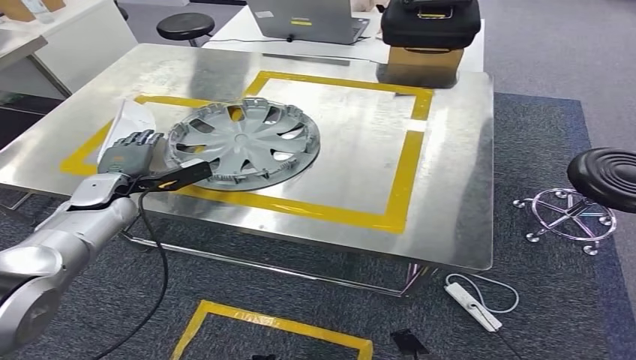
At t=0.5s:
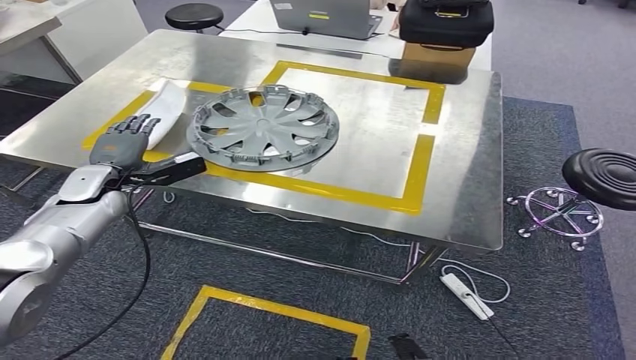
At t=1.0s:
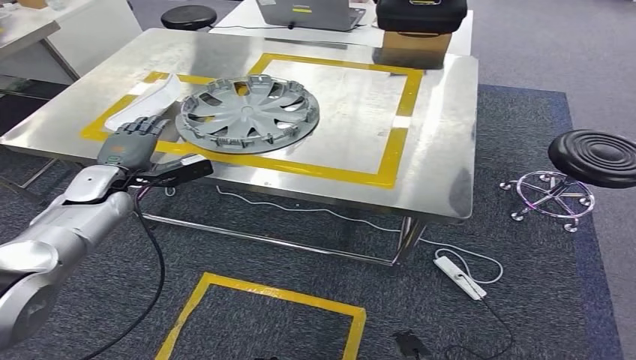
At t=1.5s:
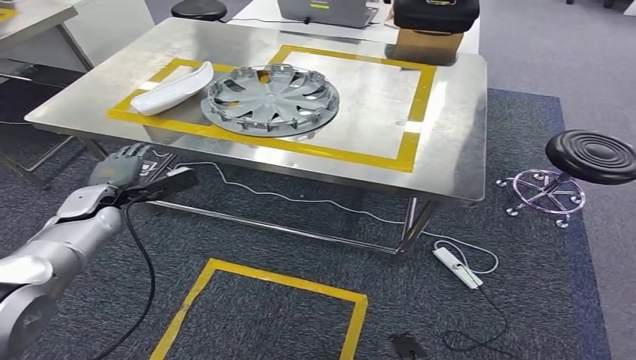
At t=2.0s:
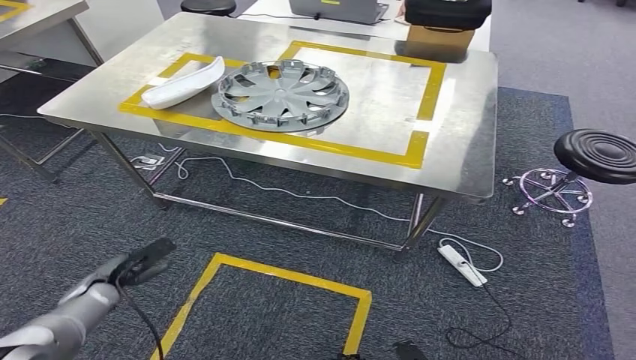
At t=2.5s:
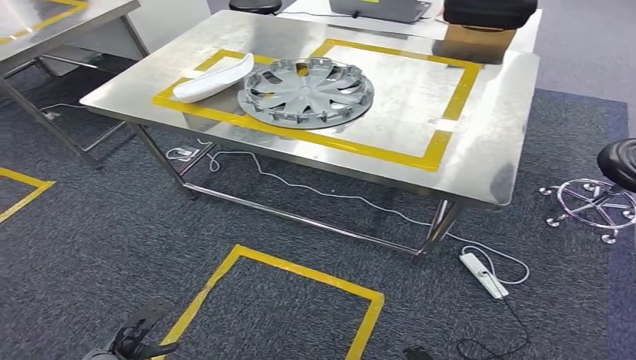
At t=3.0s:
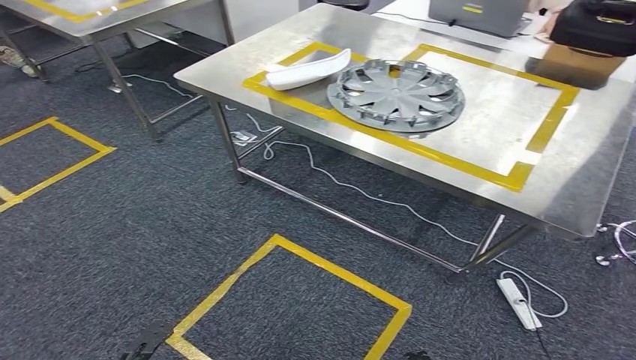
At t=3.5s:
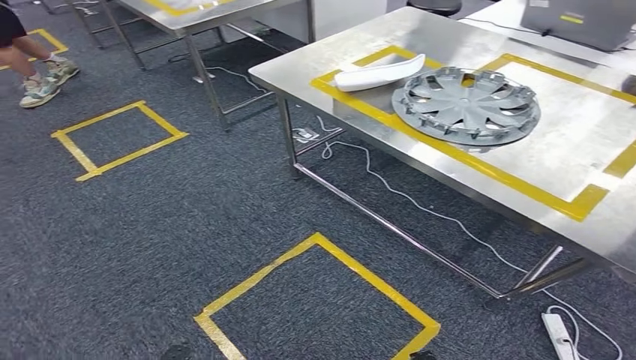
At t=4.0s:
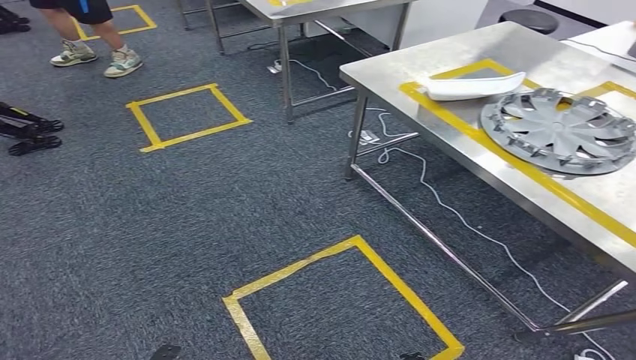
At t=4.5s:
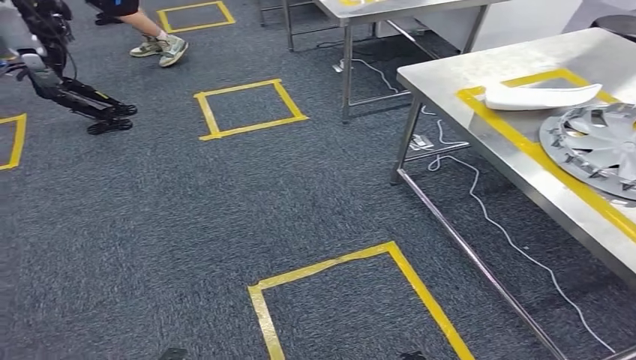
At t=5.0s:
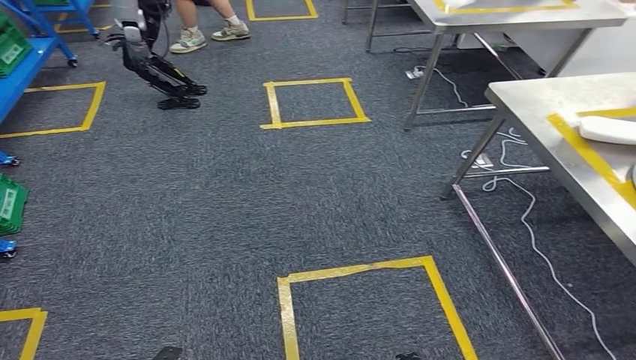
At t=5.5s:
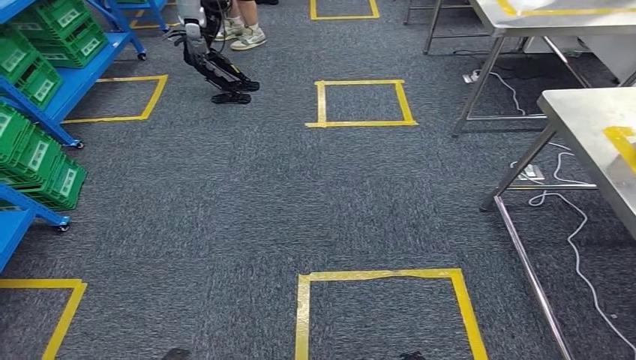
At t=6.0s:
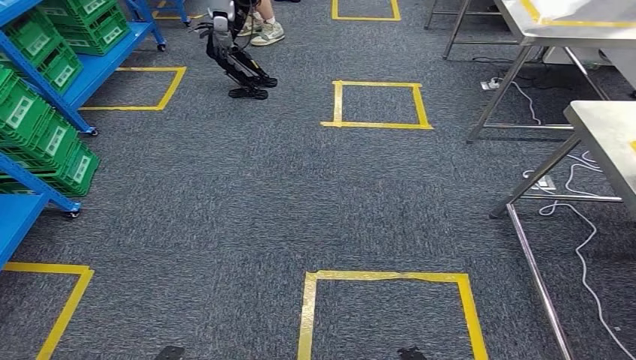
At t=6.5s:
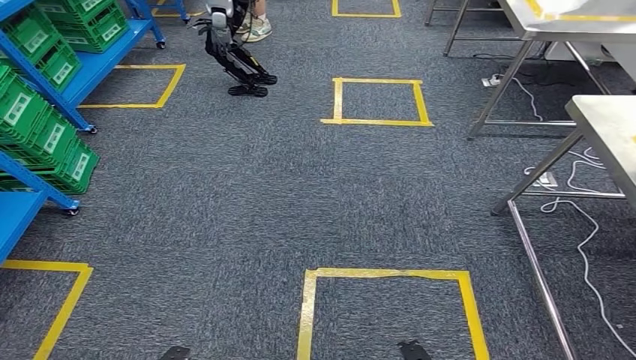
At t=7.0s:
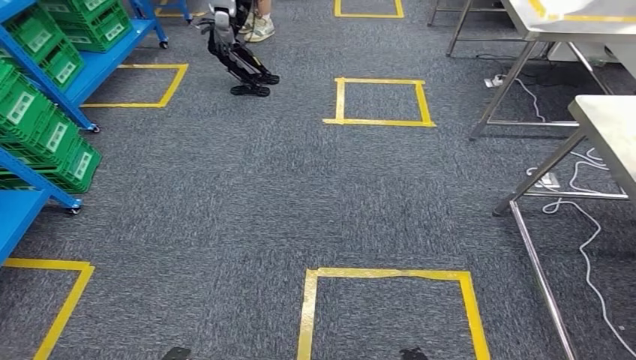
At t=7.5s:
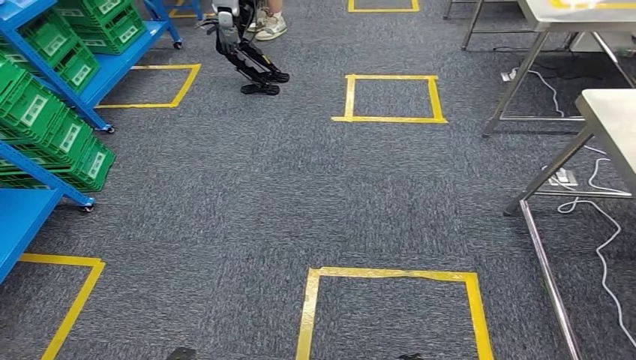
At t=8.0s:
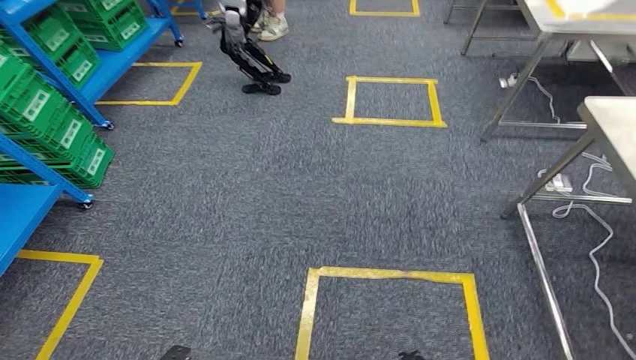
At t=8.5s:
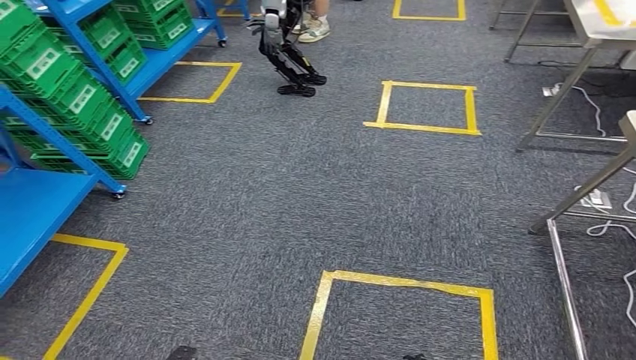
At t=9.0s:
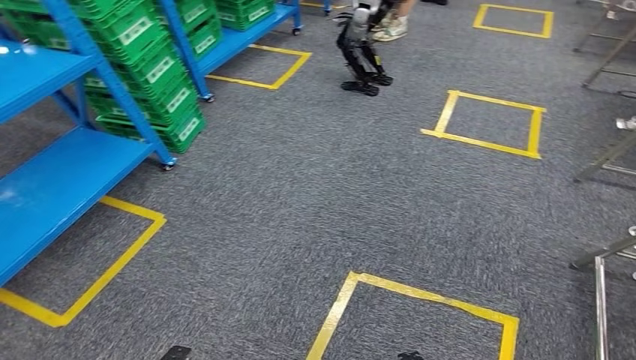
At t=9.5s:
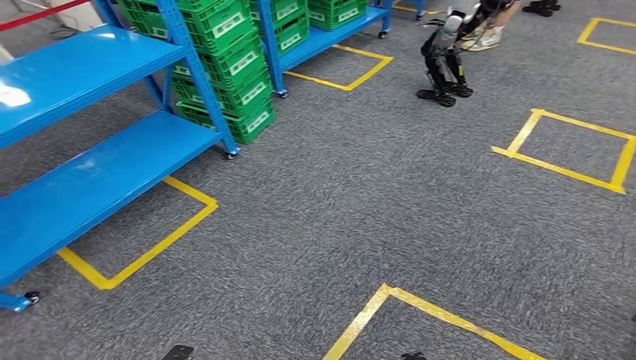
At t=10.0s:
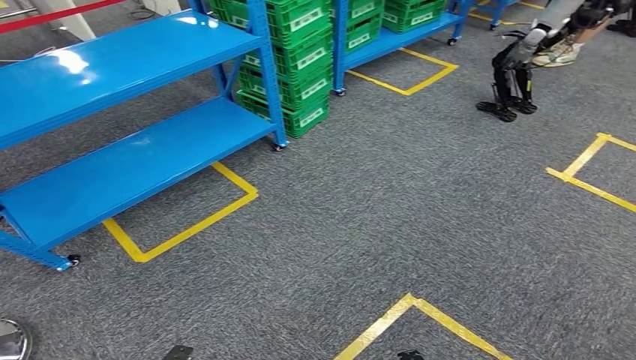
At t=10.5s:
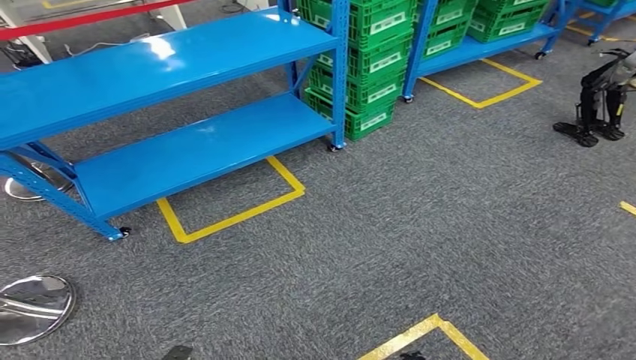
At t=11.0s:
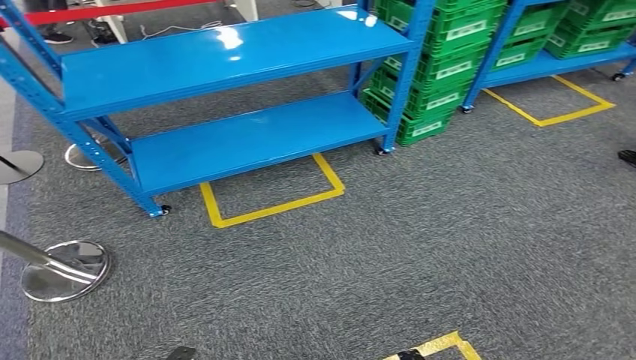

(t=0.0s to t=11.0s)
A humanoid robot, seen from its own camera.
Step, t=0.0s - t=2.5s: Insert the small parts into the corresponding holes on the workbench.
Step, t=3.0s - t=11.0s: Move to the initial position of the workbench.

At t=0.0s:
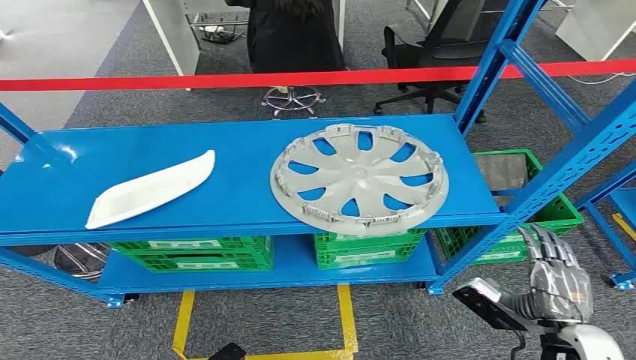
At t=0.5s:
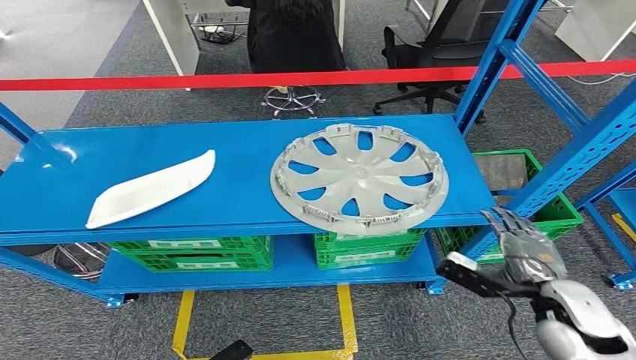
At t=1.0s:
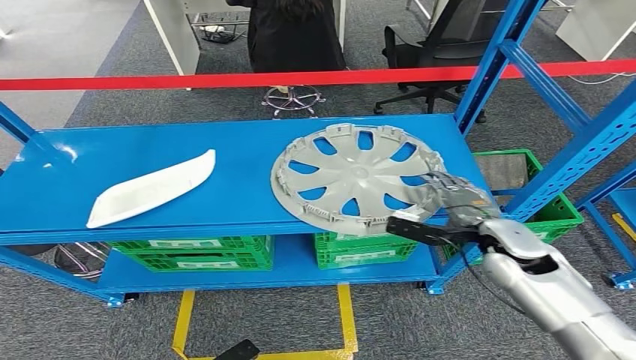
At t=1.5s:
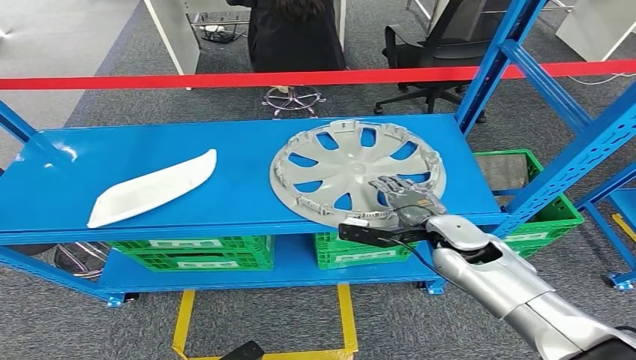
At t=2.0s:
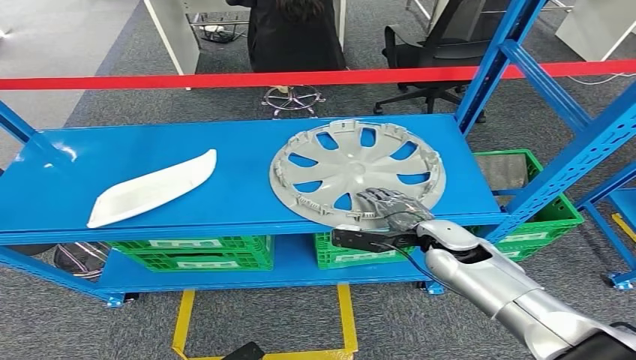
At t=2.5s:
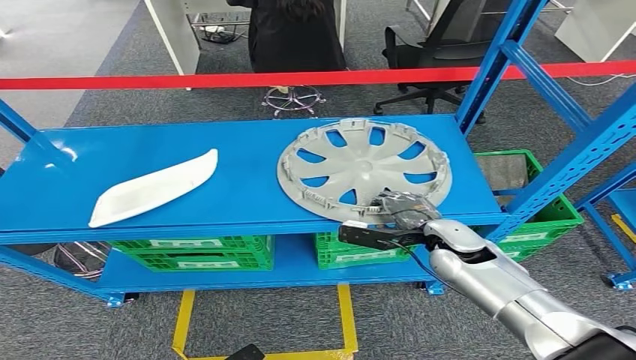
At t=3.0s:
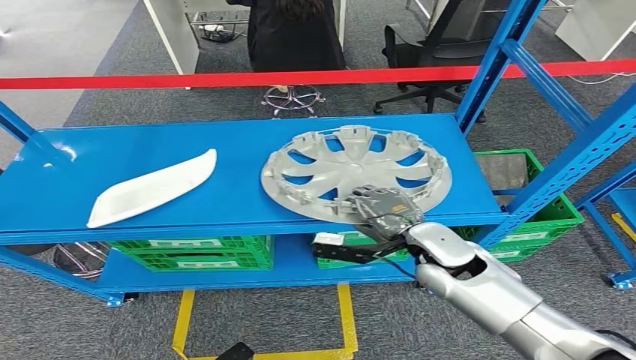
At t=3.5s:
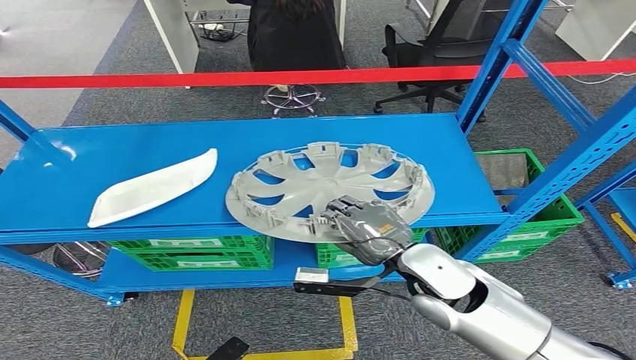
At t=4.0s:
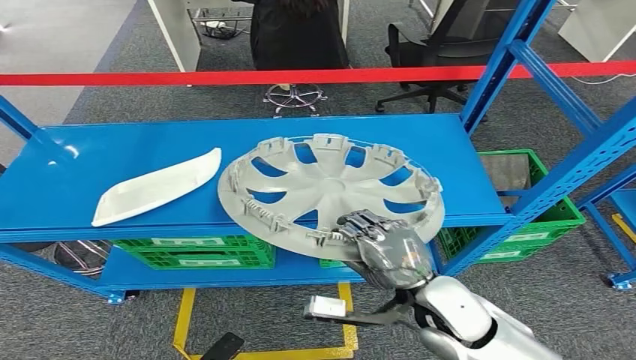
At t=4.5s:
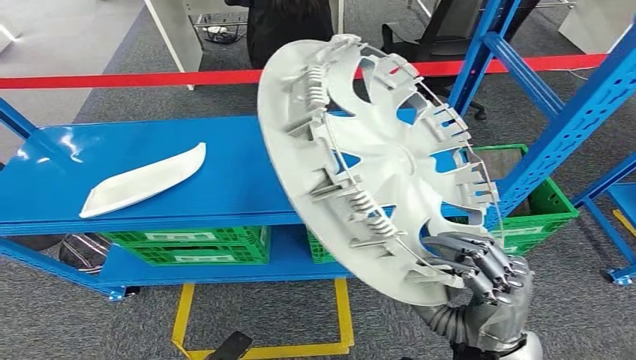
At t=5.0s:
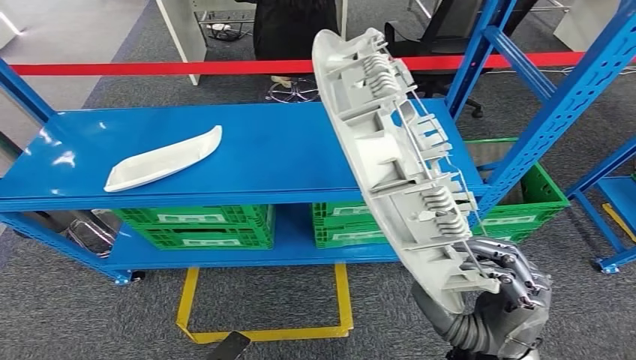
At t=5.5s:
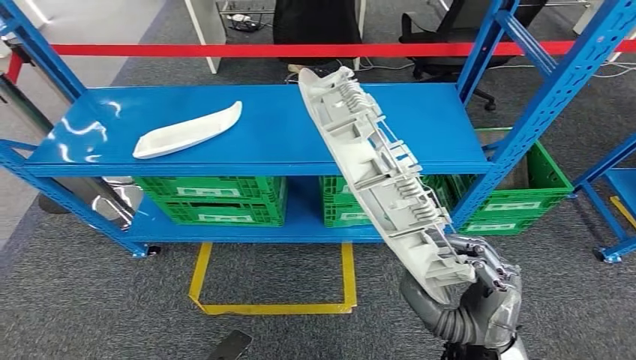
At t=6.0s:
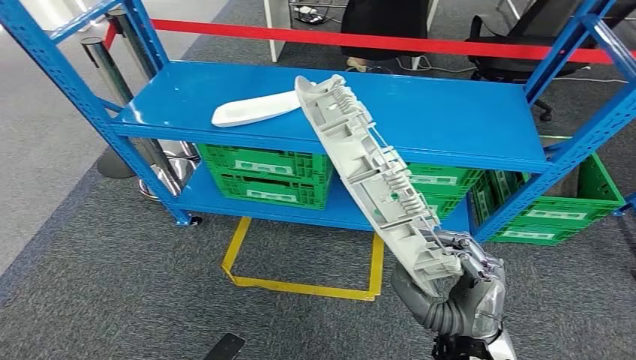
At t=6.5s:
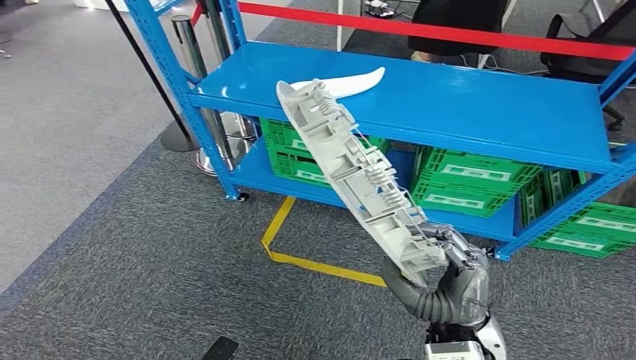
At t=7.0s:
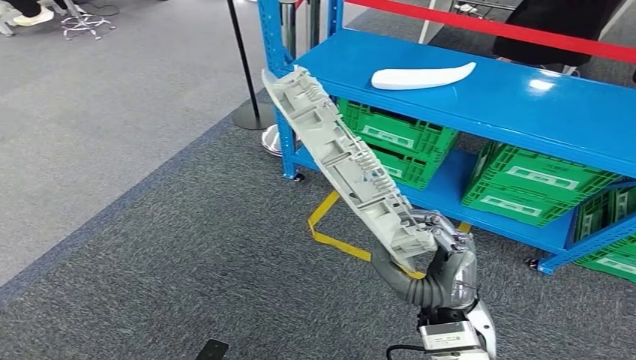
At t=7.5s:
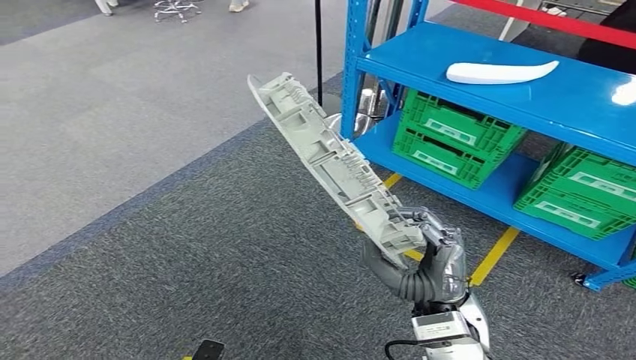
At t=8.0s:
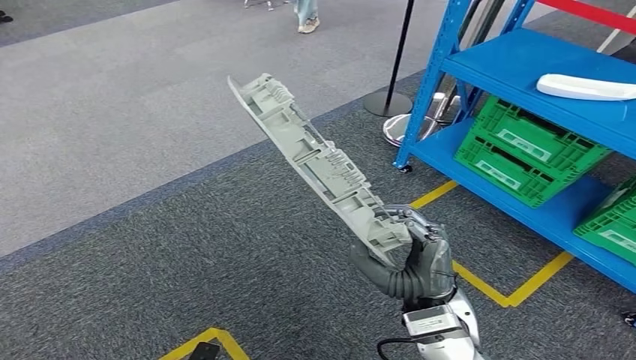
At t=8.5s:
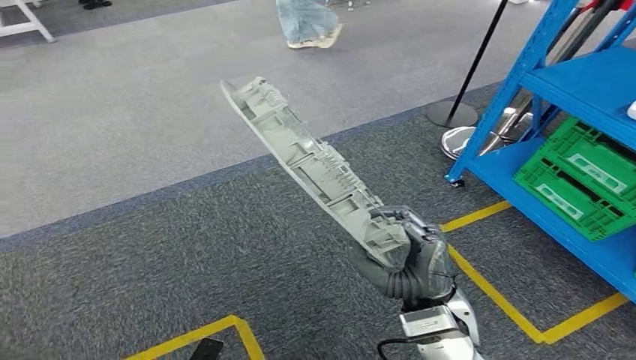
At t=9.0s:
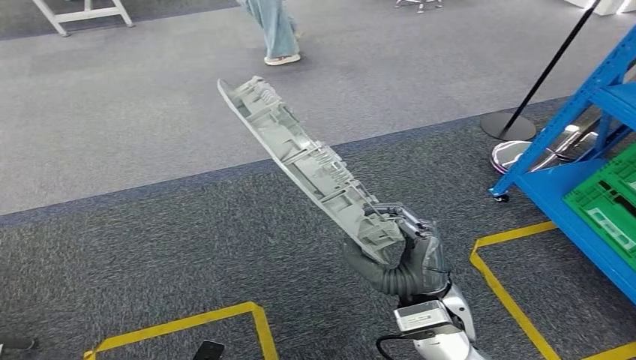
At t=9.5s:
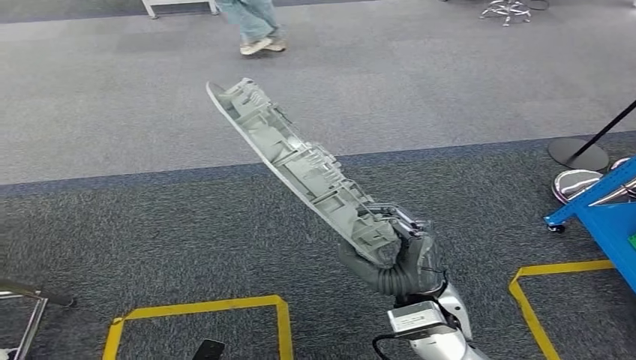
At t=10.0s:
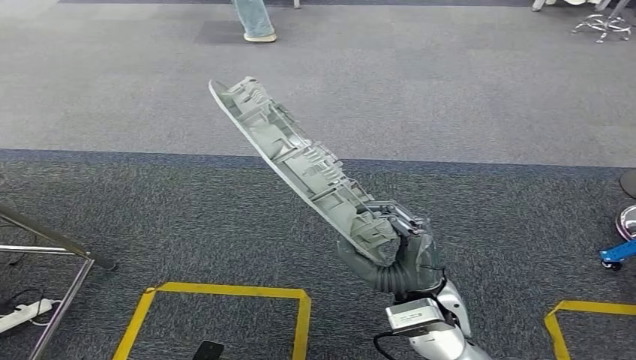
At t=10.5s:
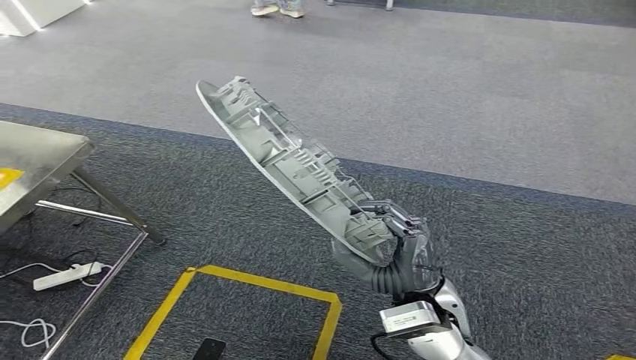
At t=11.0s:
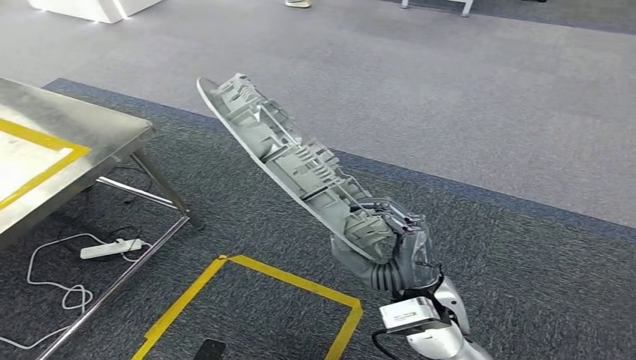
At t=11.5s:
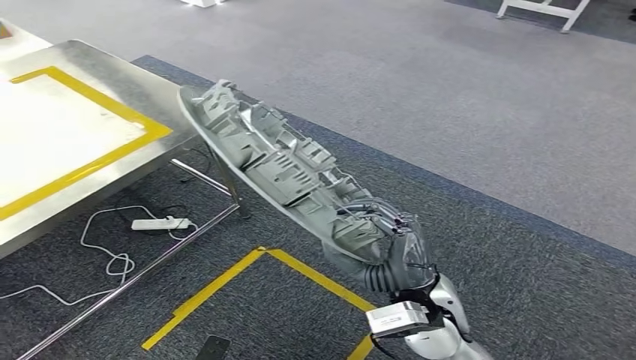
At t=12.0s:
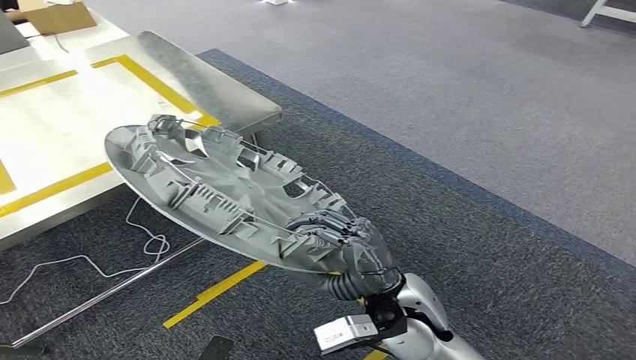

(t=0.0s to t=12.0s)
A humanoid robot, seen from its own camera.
Step, t=0.0s - t=4.0s: Take small components from the rack.
